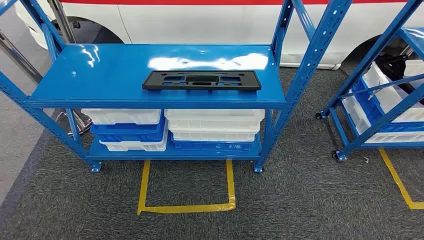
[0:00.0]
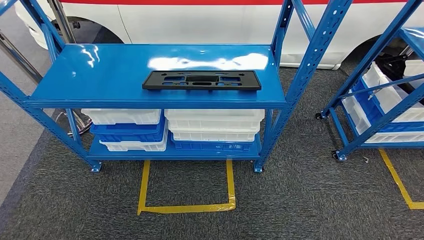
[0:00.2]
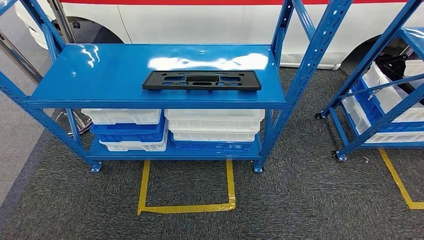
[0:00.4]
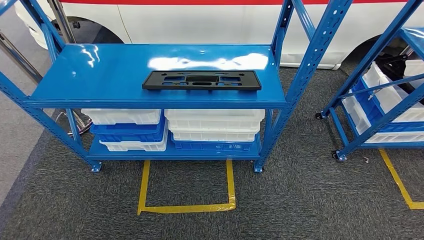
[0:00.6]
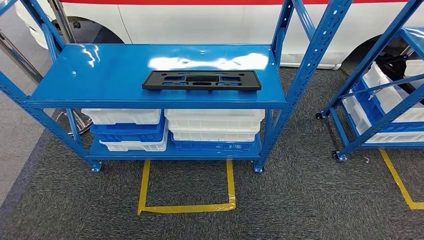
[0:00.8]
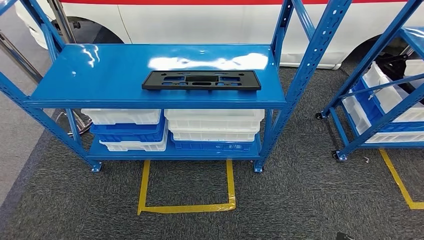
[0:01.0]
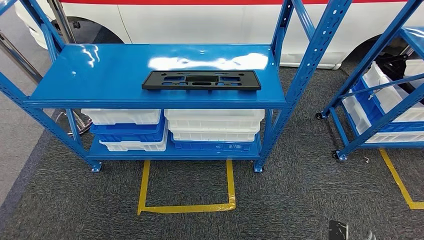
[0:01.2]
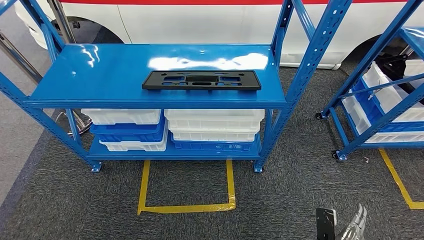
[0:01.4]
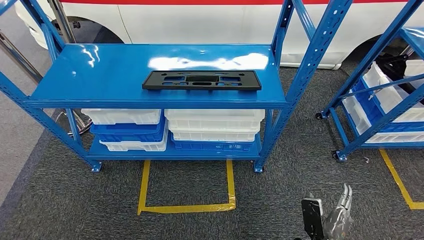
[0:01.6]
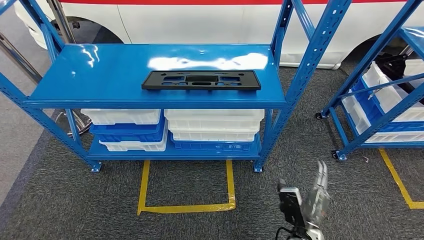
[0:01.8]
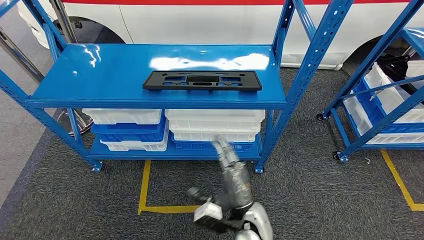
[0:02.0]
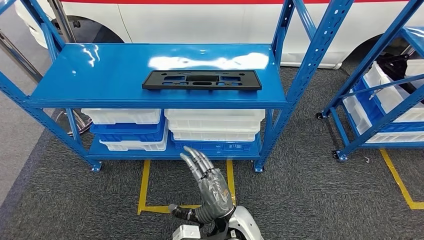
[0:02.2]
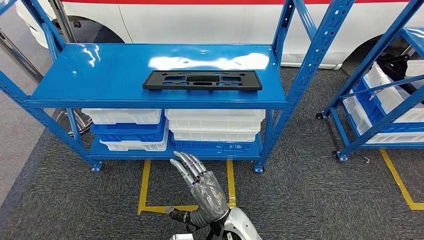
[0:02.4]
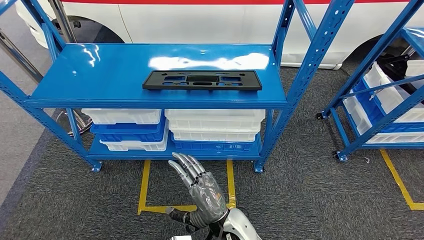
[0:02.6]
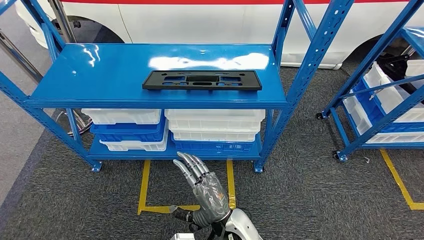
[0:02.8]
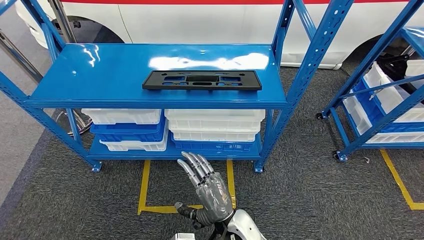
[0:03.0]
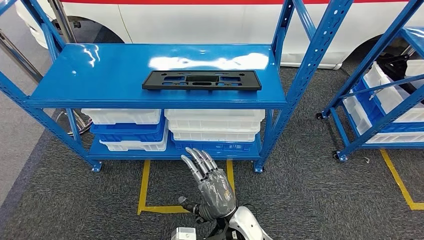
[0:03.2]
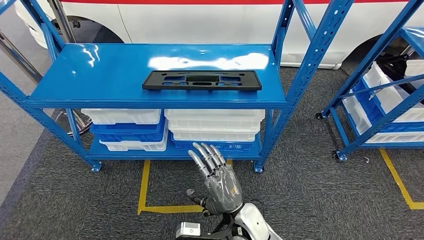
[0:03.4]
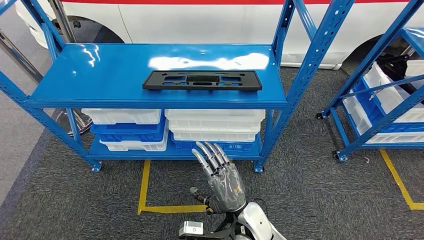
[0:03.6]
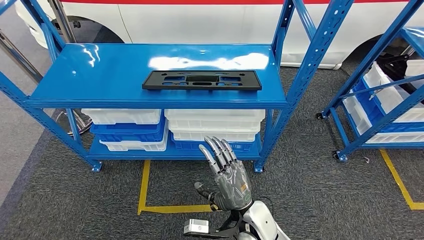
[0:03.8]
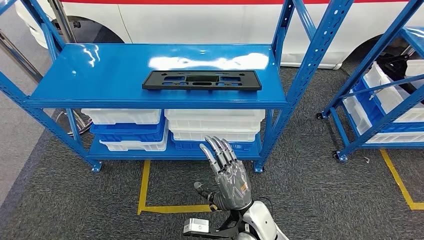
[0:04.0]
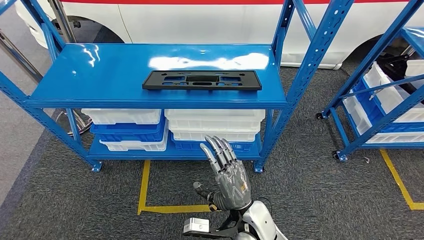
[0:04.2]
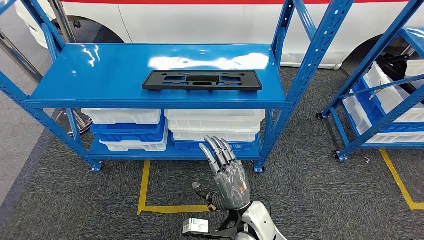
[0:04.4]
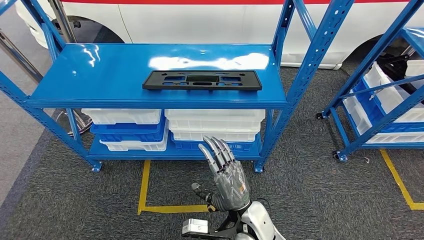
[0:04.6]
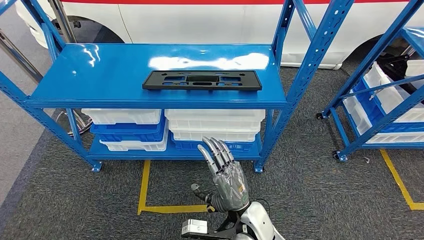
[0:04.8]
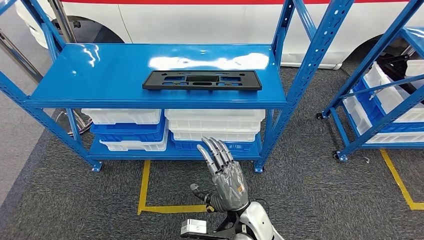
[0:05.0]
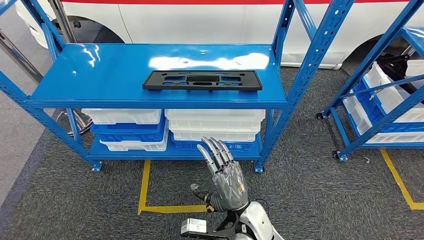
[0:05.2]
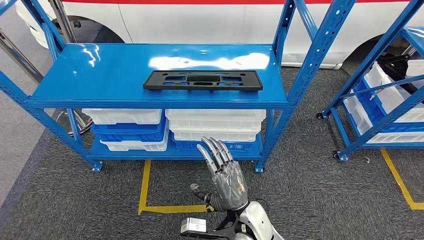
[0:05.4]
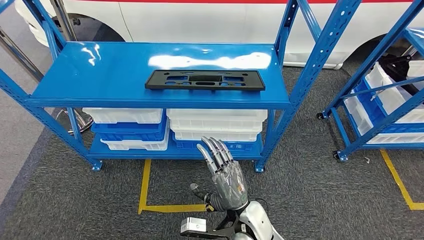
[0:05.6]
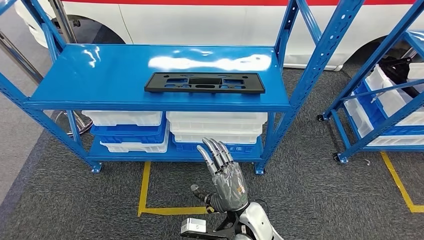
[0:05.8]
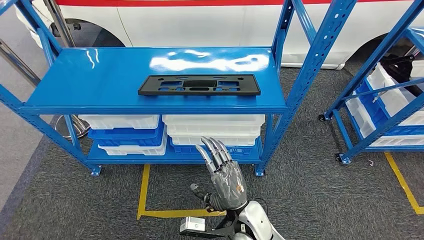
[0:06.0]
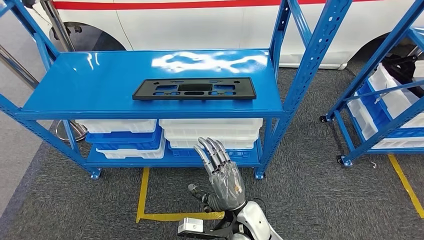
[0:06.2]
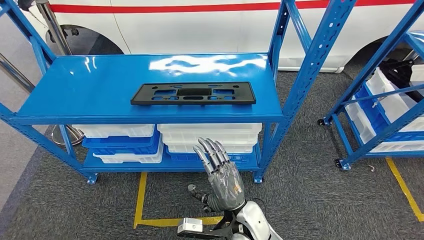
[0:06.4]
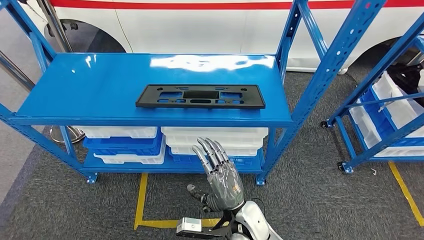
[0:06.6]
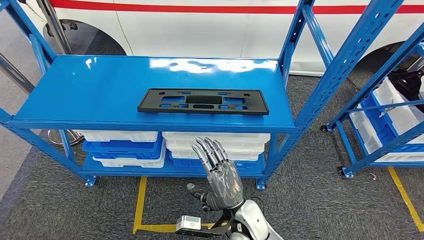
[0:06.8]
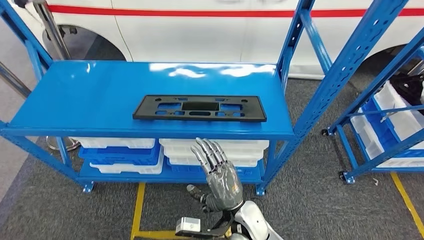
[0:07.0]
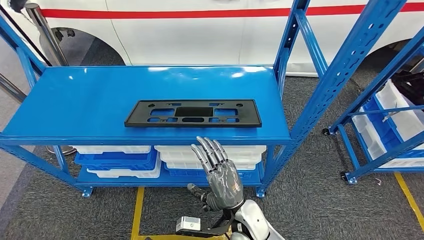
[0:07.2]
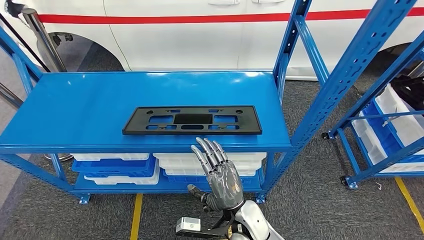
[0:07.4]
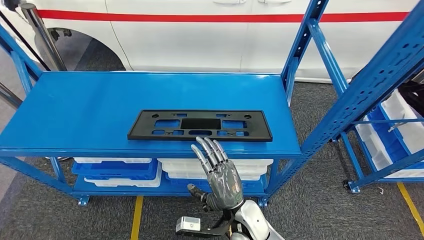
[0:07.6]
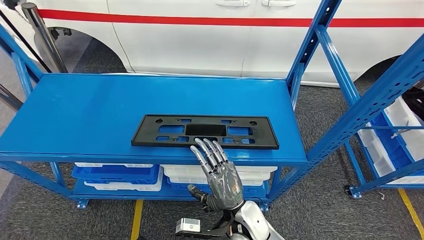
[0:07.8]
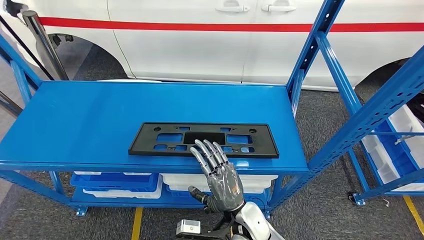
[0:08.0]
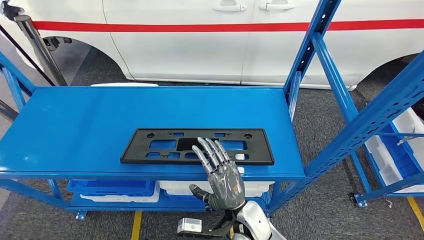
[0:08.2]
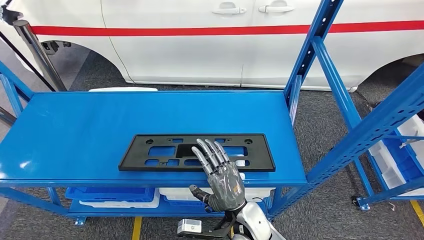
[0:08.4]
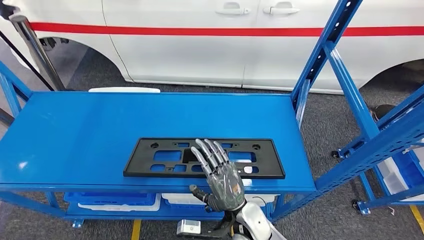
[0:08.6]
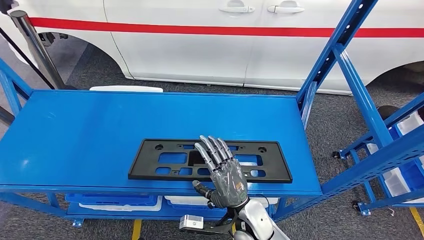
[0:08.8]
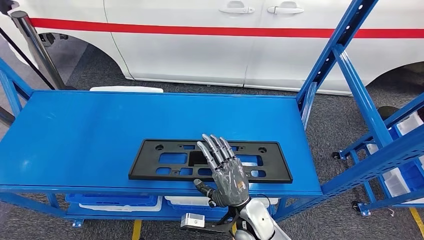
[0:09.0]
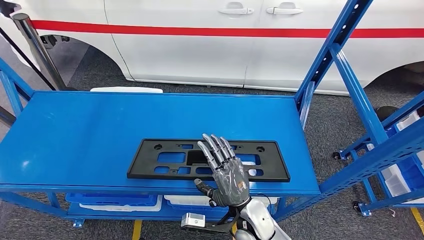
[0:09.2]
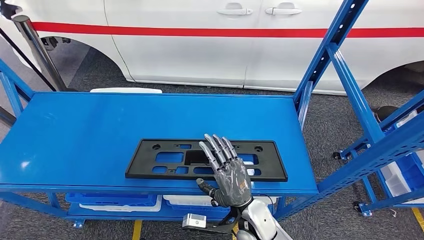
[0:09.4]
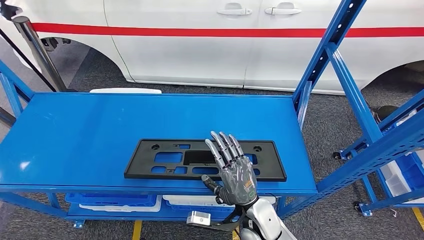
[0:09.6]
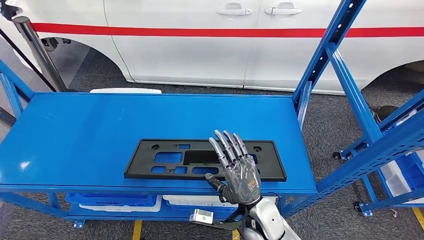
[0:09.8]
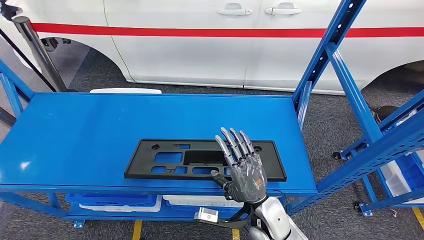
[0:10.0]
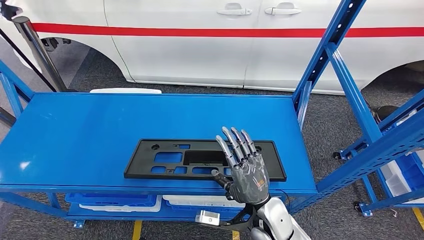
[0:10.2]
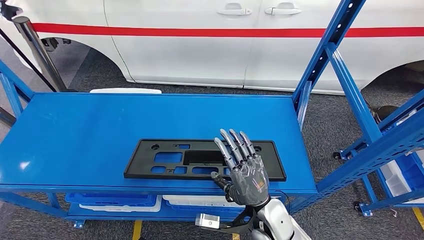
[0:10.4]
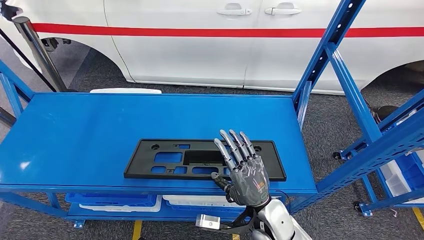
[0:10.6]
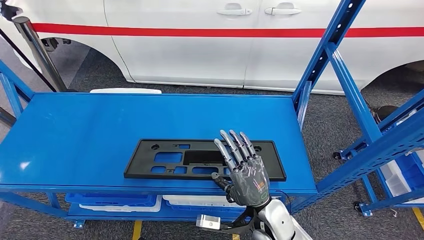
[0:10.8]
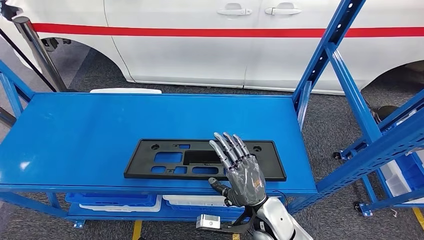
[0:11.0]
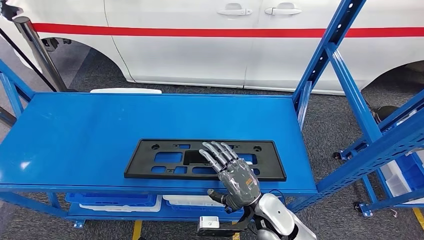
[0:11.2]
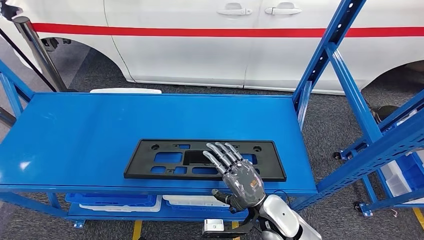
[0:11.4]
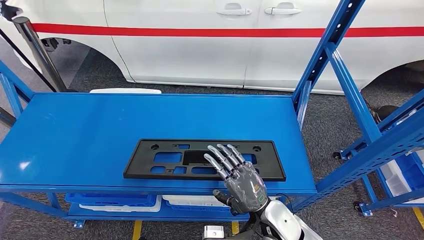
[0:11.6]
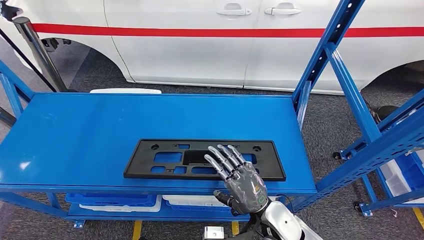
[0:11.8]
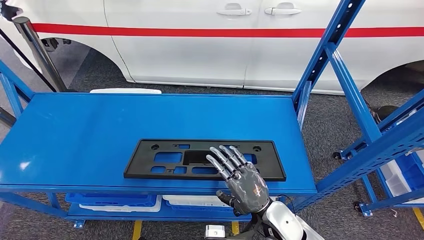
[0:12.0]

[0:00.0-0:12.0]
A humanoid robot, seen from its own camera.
0:01.6 to 0:03.0: The right hand heads to the left and upward, covering some 25 cm.
0:03.0 to 0:04.4: The hands stay close to where they were, moving slightly.
0:09.0 to 0:10.4: The hands make only small movements.

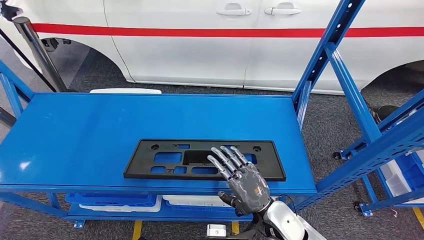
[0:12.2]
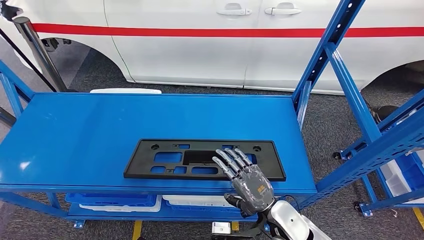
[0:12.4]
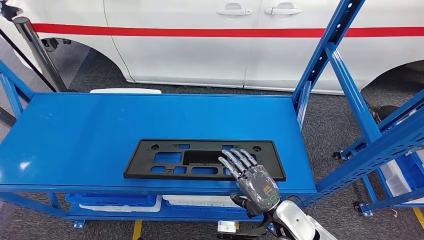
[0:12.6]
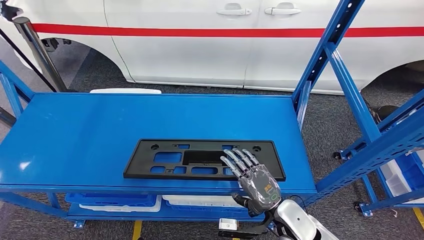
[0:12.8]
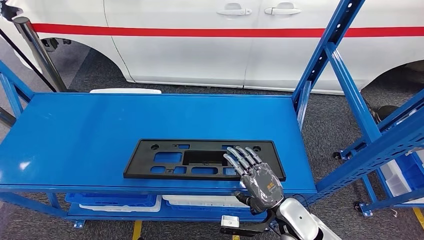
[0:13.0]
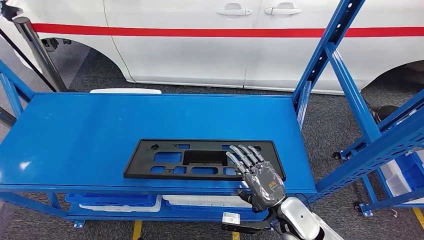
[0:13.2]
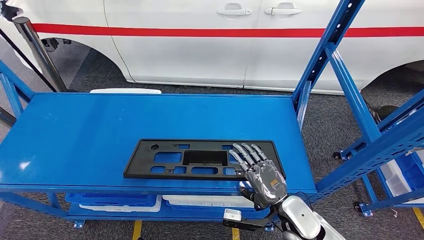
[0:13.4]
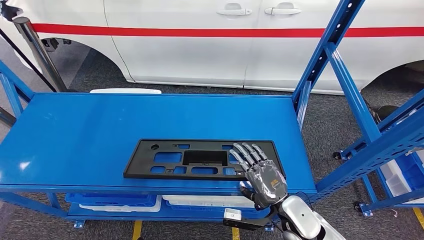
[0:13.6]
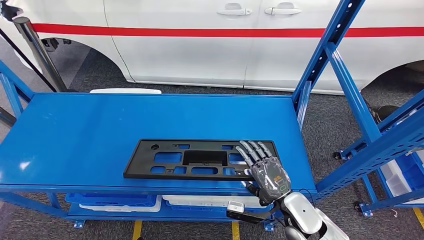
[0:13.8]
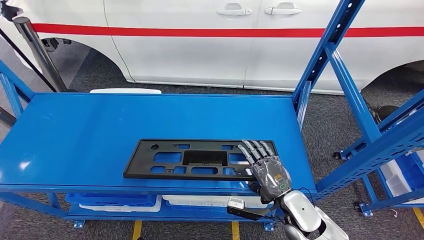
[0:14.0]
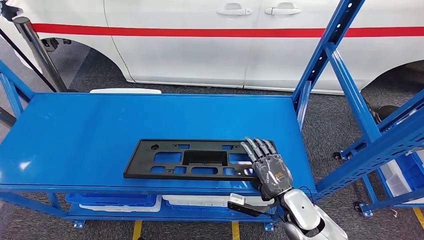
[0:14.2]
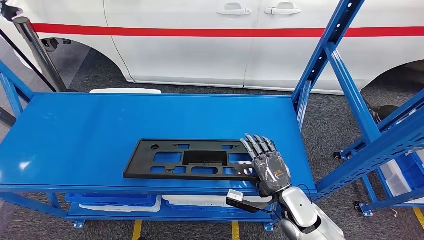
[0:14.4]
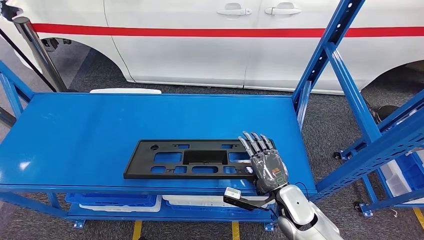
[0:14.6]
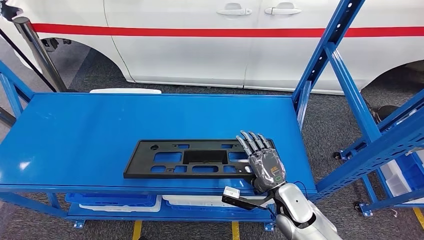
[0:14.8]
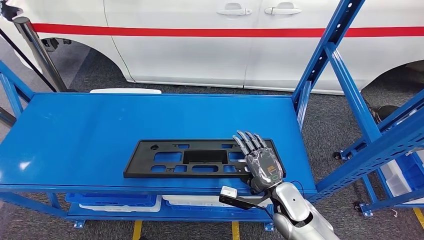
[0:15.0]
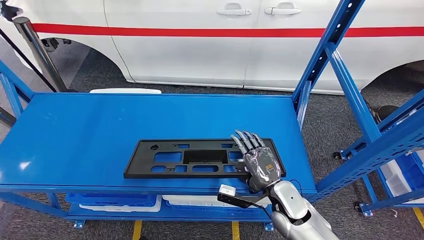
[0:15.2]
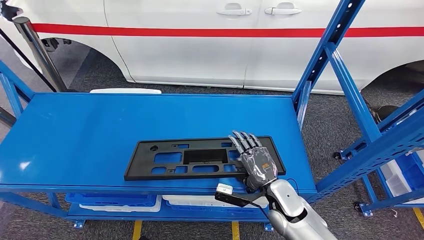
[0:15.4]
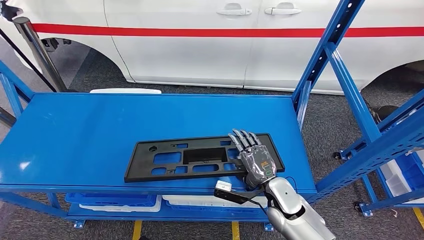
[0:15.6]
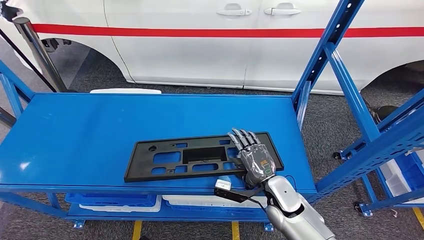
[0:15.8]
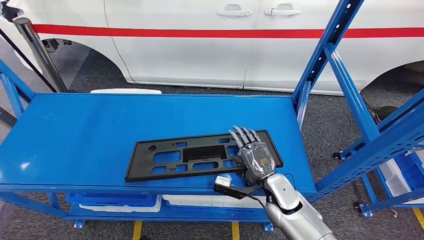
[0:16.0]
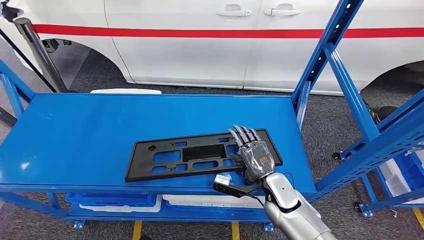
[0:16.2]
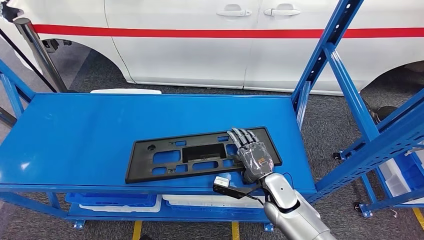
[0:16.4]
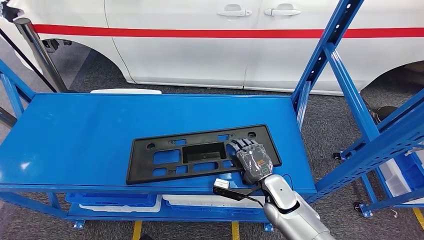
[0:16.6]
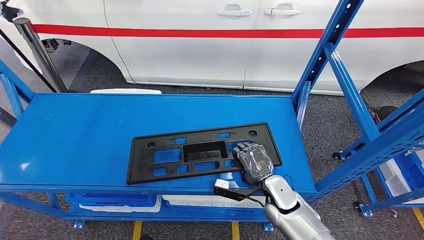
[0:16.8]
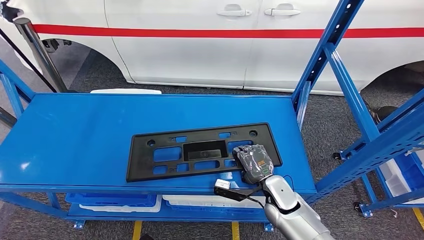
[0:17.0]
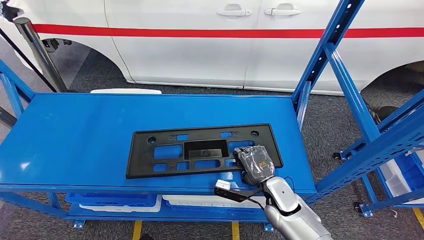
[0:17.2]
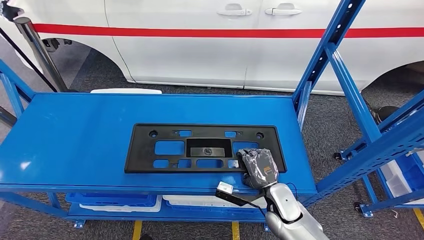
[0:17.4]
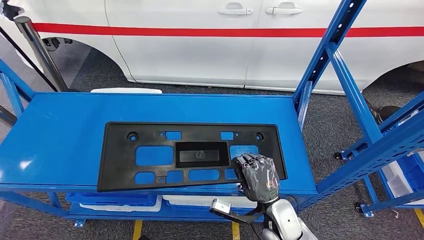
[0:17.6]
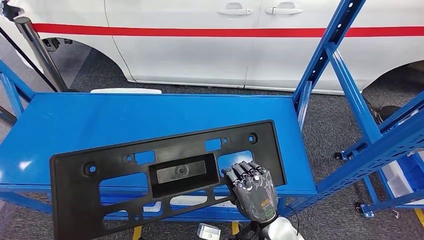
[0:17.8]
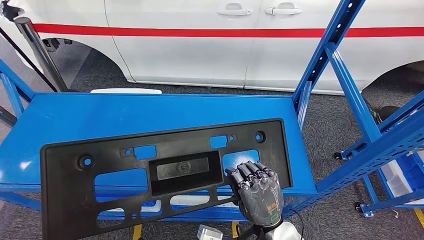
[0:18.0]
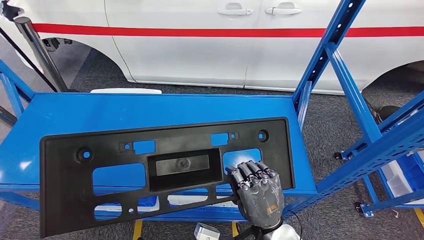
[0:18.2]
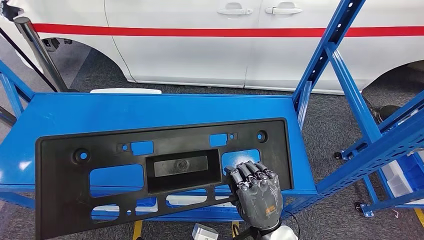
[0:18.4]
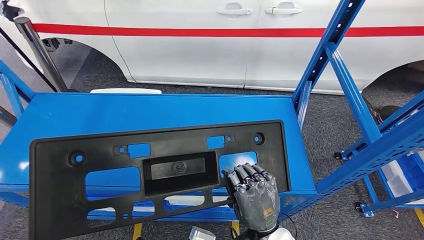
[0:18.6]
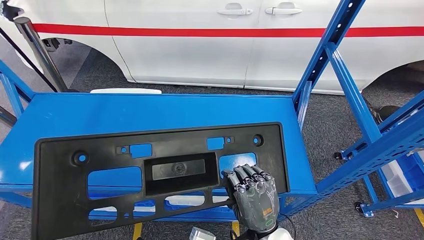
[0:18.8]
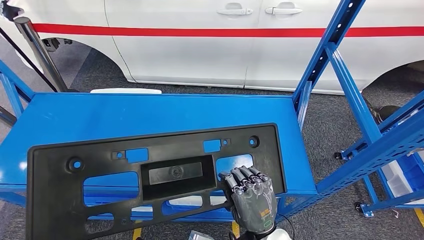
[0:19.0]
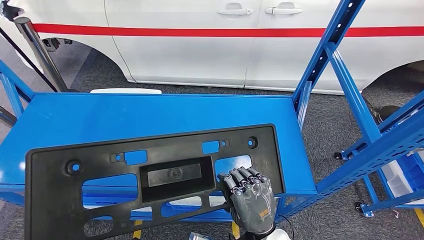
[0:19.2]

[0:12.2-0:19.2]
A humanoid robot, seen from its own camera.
0:12.2 to 0:13.6: The right hand shifts by some 5 cm.
0:13.6 to 0:15.0: The hands stay close to where they were, moving slightly.
0:15.0 to 0:16.4: The hands move only a little.
0:17.8 to 0:19.2: There are only small adjustments of the hands.
